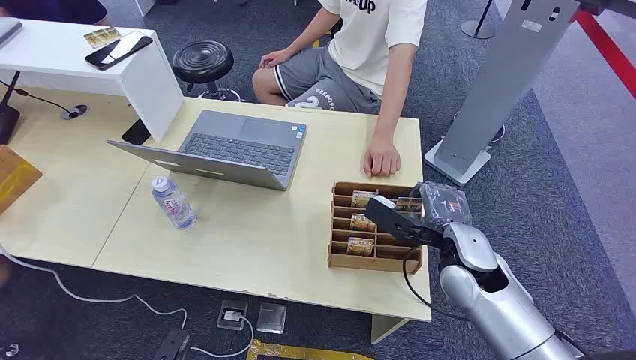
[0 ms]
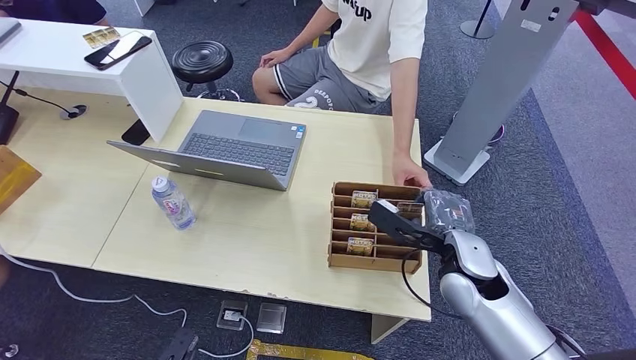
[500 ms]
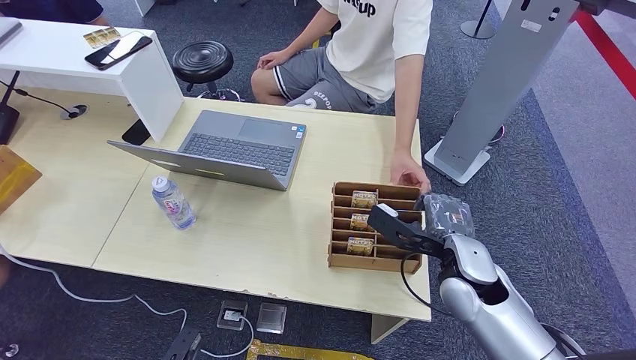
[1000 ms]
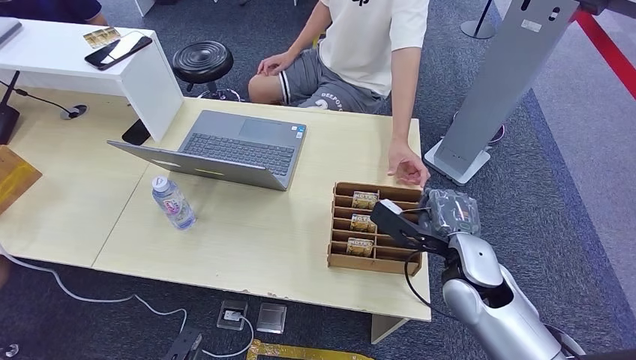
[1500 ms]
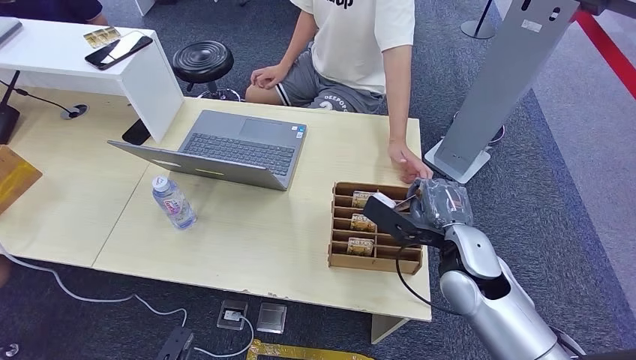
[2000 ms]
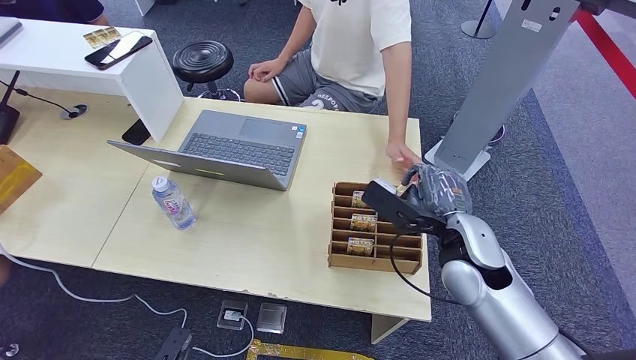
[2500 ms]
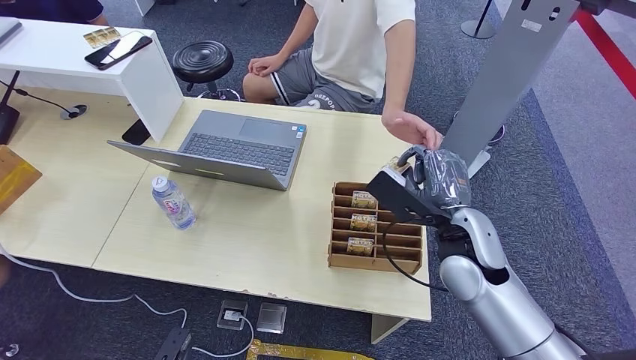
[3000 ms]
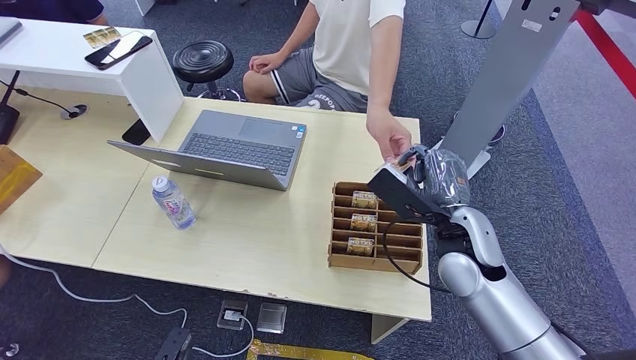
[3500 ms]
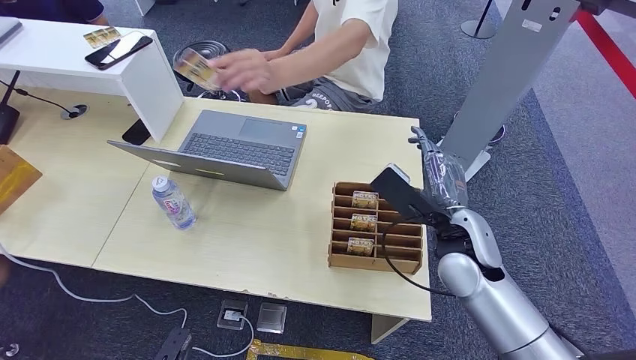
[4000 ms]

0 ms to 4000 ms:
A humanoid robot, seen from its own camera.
Step, 0 ms to 2500 ms: Pick up the key card from the card box.
Step, 3000 ms to 4000 ms: Hand the key card to the target.
